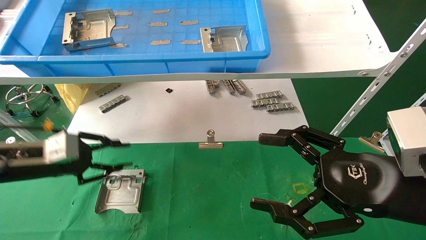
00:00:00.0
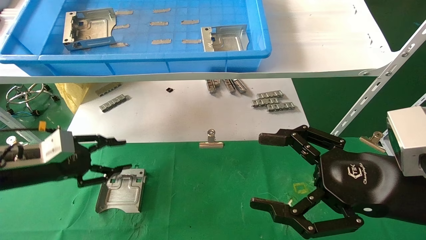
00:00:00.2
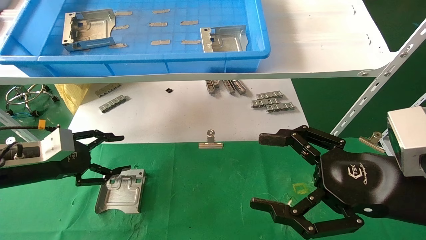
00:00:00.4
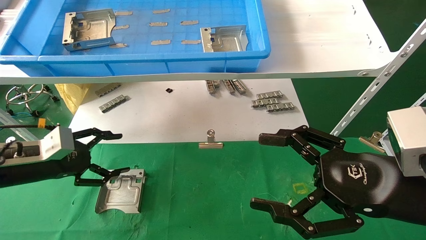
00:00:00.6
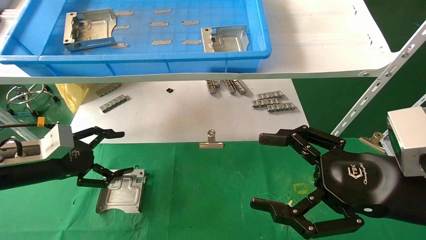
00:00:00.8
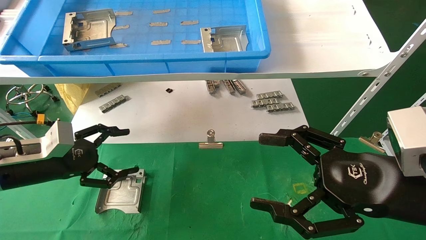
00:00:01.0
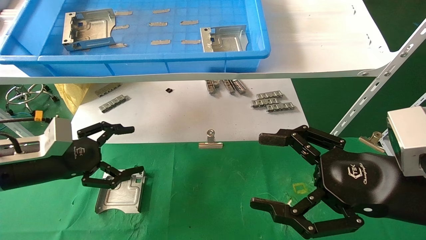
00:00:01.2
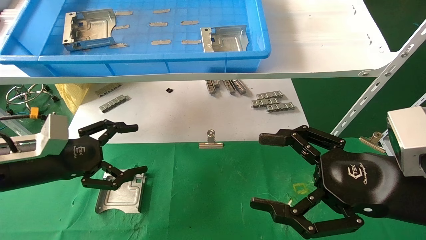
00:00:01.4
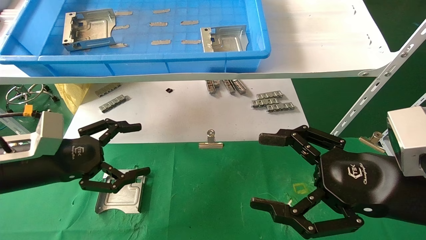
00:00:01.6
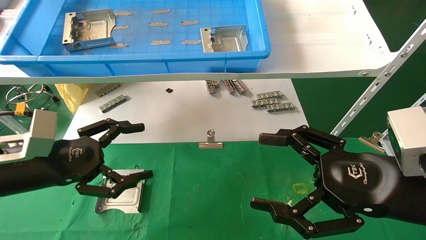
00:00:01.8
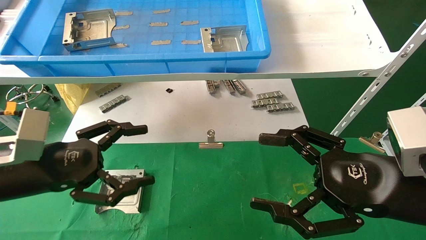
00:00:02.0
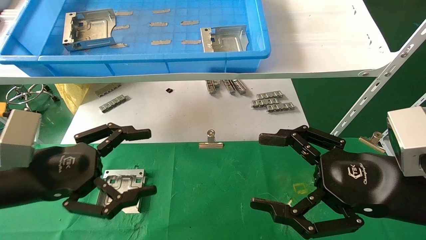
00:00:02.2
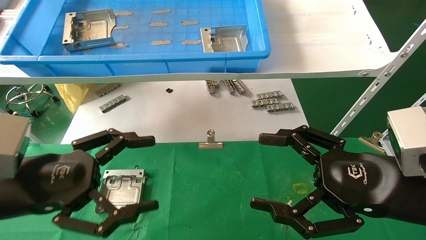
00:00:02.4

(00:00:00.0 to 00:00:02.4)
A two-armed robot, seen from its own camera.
Task of the whole recording: use the mechanical arm to pick up the parts and place them on the table.
00:00:00.0 - 00:00:01.2: The left gripper opens up.
00:00:01.2 - 00:00:02.4: The left gripper goes roughly 10 cm backward and to the right.

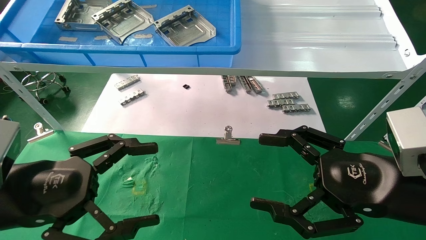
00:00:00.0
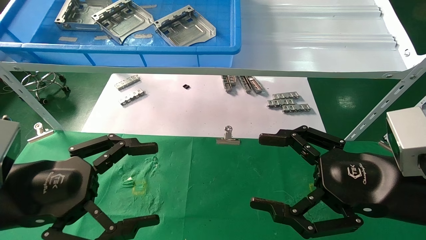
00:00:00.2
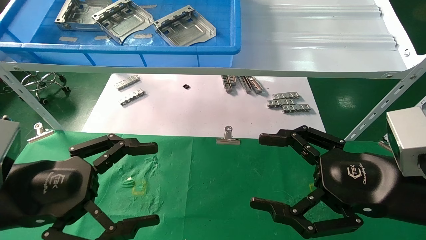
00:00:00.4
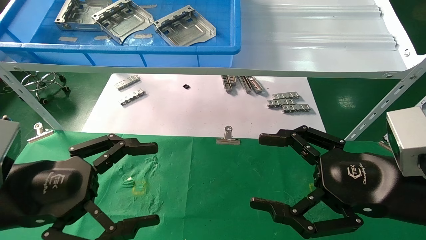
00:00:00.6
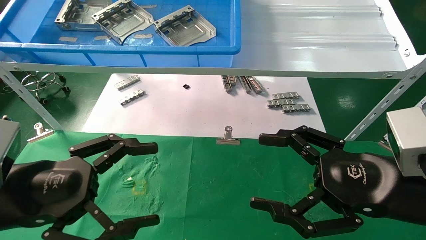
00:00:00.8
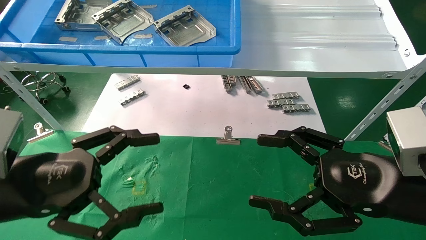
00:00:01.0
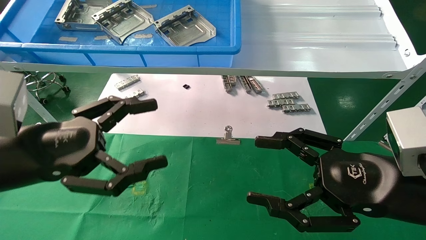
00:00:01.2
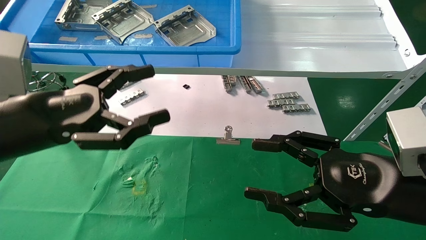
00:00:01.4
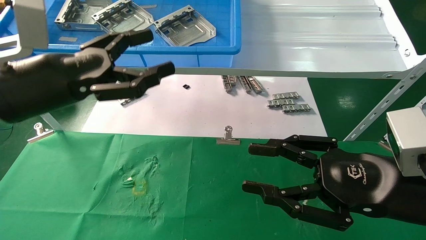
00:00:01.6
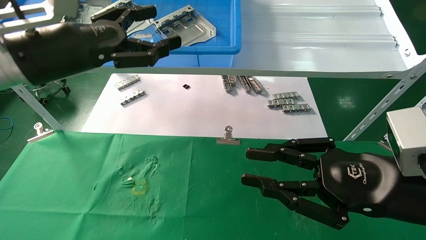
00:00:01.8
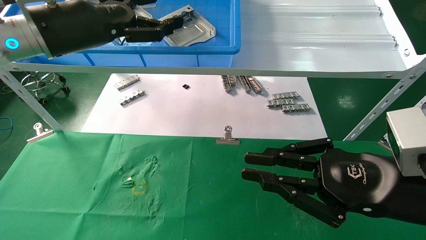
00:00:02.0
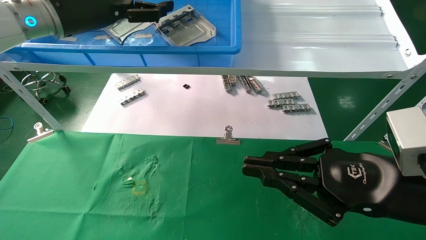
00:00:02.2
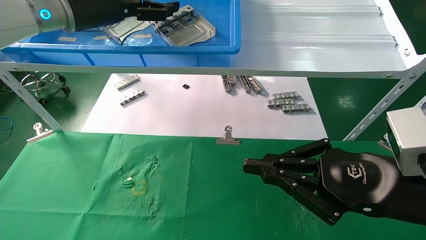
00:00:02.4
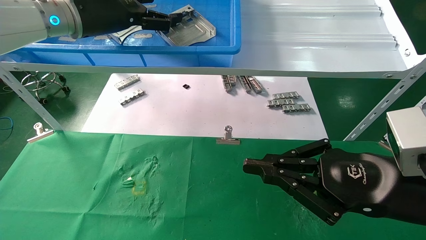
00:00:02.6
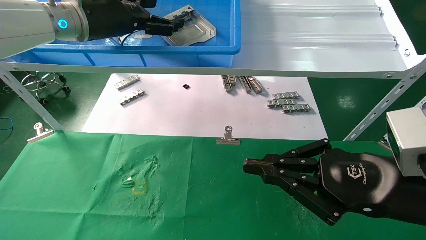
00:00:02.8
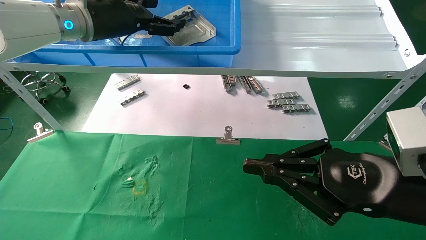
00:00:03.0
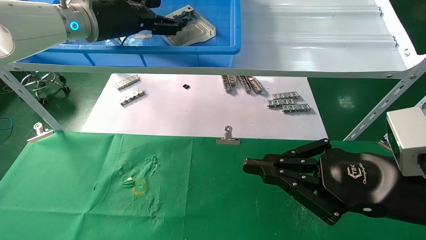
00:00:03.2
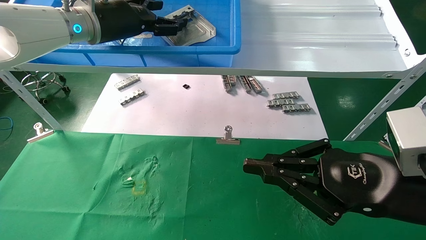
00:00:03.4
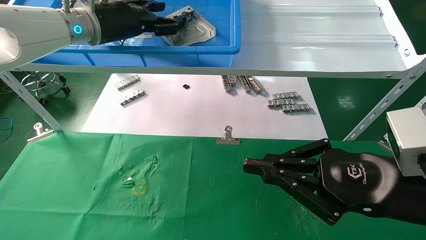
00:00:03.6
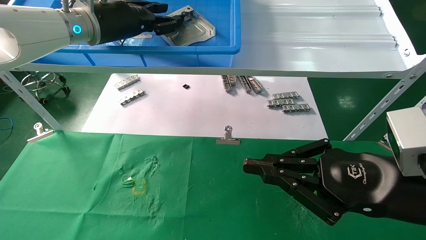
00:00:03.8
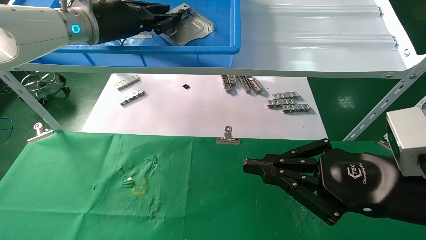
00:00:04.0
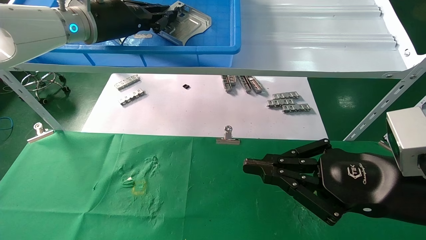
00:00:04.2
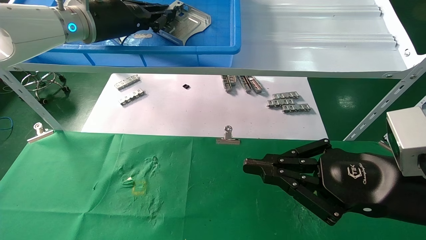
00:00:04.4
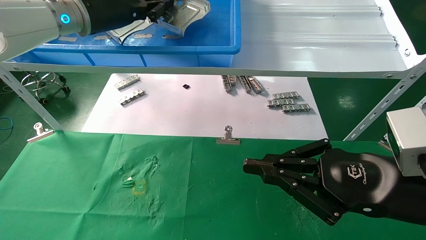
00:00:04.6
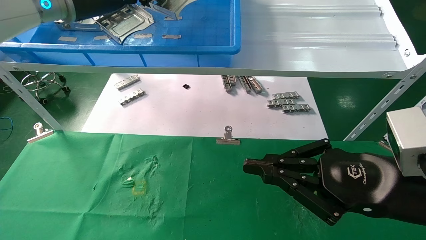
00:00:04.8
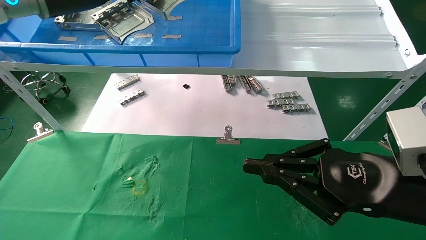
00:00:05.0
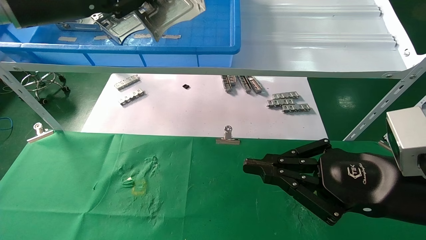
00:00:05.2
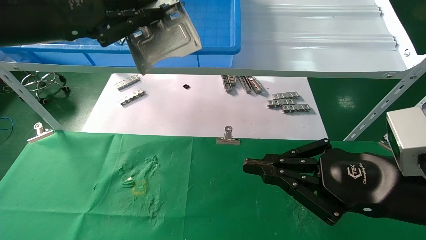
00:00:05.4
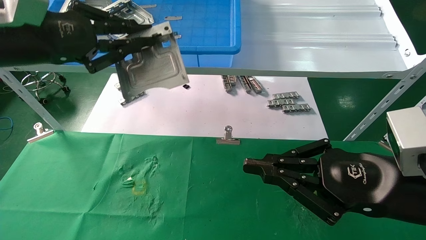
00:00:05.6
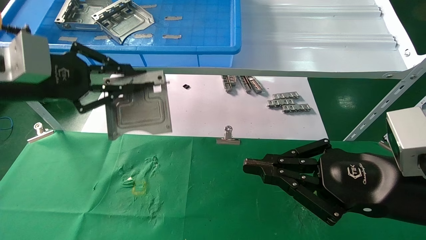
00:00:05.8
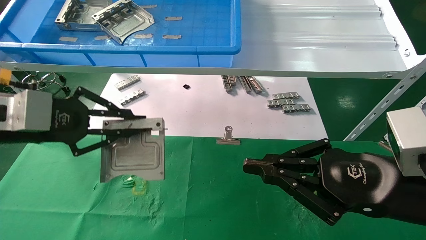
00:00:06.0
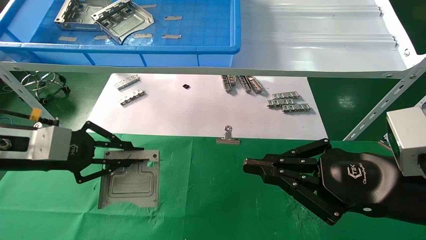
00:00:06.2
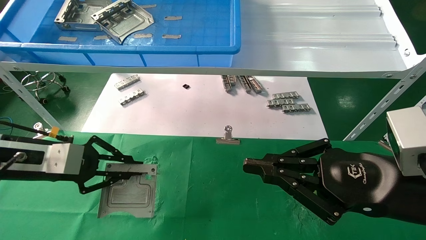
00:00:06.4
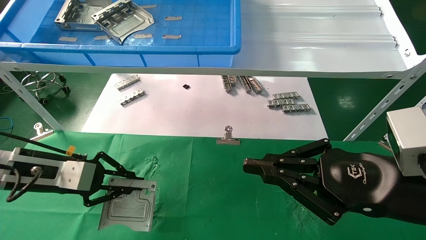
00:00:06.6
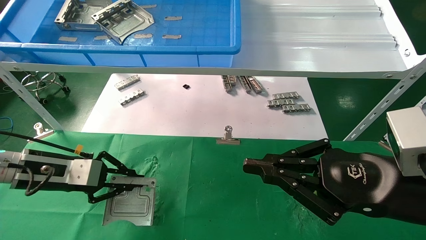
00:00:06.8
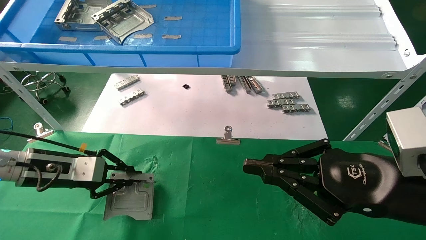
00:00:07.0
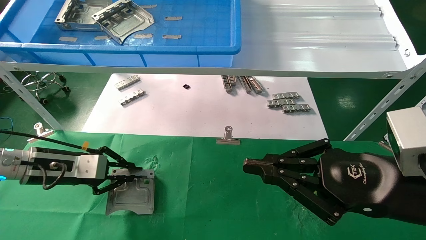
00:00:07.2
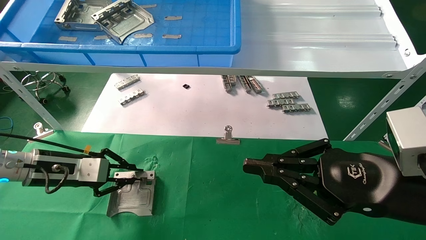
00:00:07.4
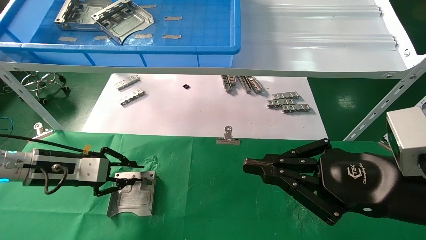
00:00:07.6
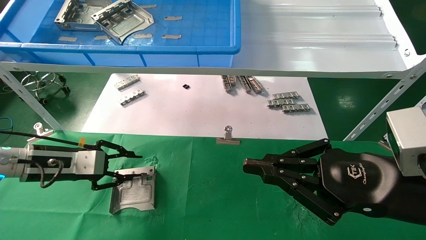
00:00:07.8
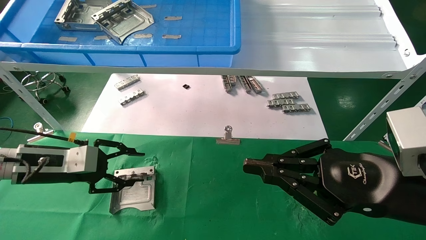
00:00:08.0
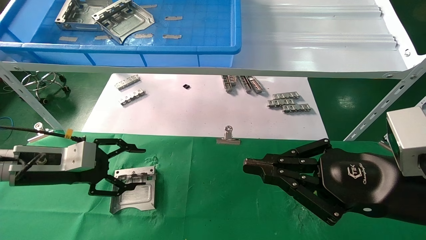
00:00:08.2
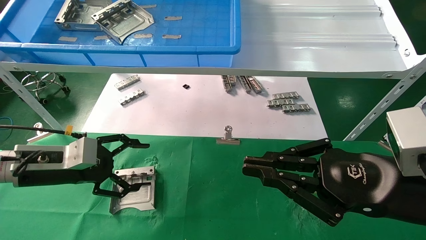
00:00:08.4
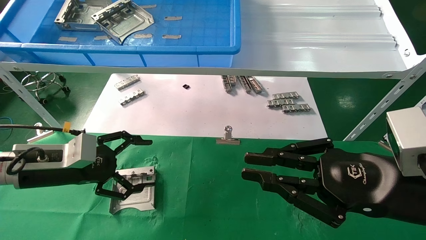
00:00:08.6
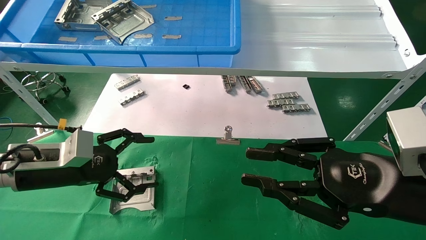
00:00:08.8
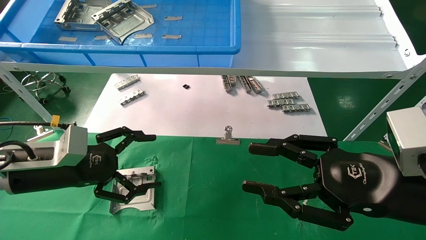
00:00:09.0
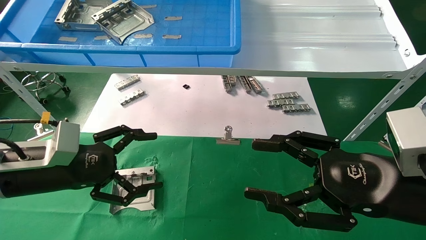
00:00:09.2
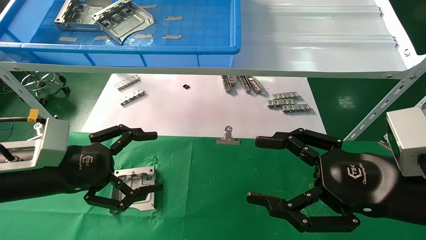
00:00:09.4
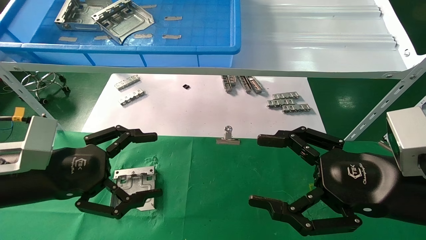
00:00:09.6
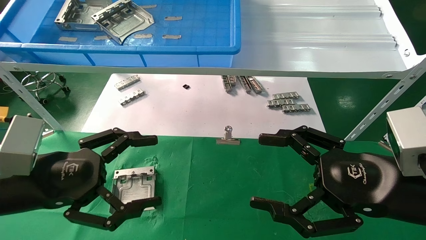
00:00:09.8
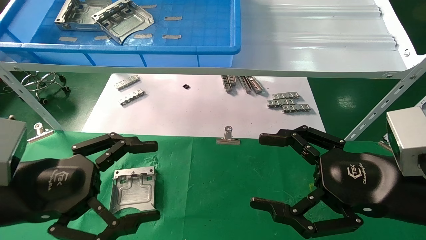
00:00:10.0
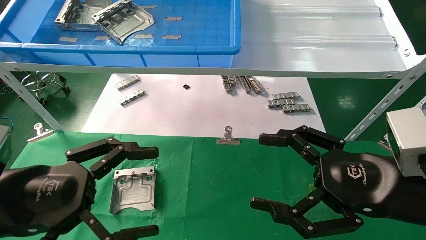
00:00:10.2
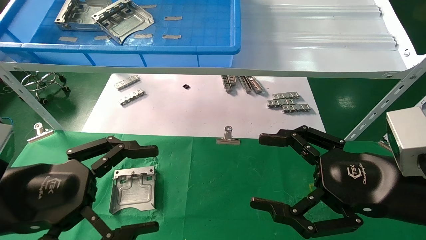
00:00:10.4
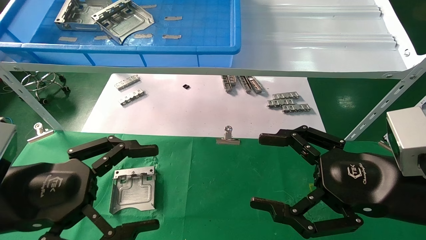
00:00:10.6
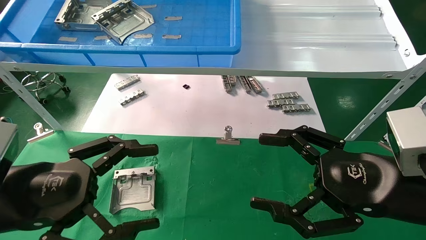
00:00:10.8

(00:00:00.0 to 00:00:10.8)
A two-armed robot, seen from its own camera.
Task of the whole recording: use the mechanical arm to pick up the parts and place them on the table.
Step, 00:00:01.4 - 00:00:04.4: Pick up the hard drive bracket from the feeding area.
Step, 00:00:04.6 - 00:00:07.6: Place the hard drive bracket into the box.
00:00:00.0 - 00:00:01.6: The right gripper closes up. The left gripper heads upward and forward, covering roughly 15 cm.
00:00:01.6 - 00:00:03.0: The left gripper travels forward and upward by roughly 20 cm; the right gripper closes its fingers.
00:00:03.0 - 00:00:04.6: The left gripper closes up.
00:00:04.6 - 00:00:06.2: The left gripper travels downward, backward and to the left by about 25 cm.
00:00:06.2 - 00:00:07.8: The left gripper moves downward and forward, approximately 10 cm.
00:00:07.8 - 00:00:09.2: The left gripper goes roughly 5 cm backward, and opens; the right gripper opens up.
00:00:09.2 - 00:00:10.8: The left gripper goes some 10 cm backward. The right gripper opens.
